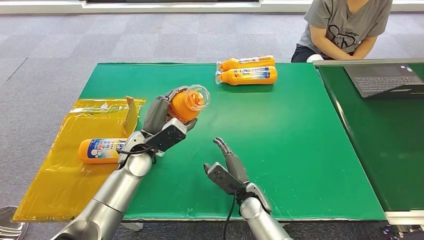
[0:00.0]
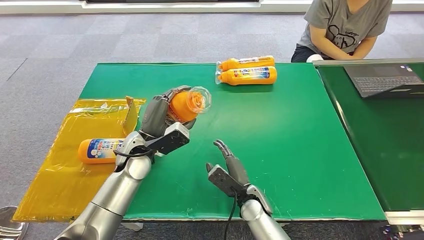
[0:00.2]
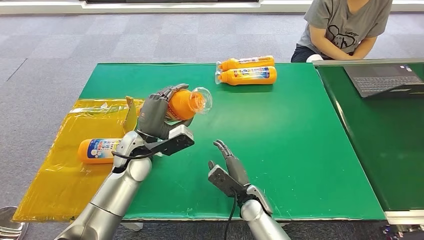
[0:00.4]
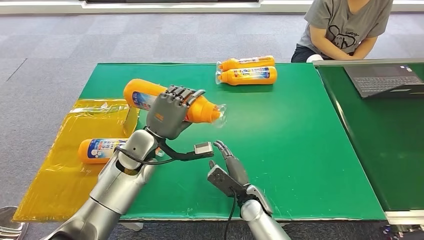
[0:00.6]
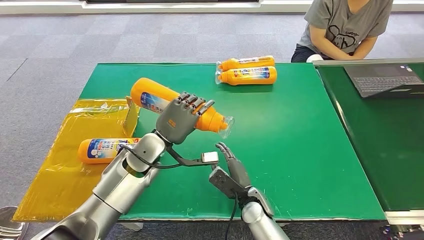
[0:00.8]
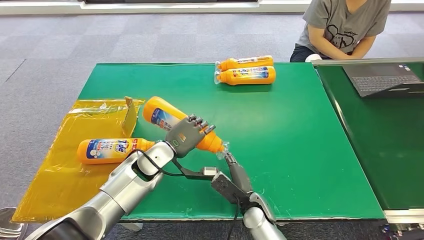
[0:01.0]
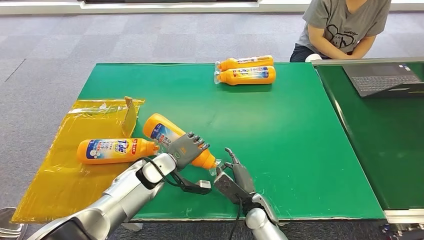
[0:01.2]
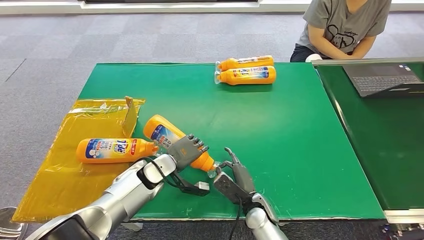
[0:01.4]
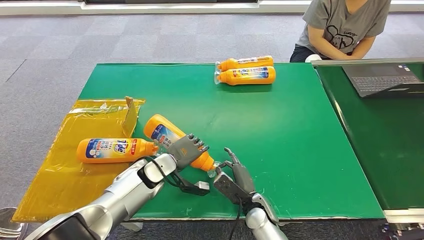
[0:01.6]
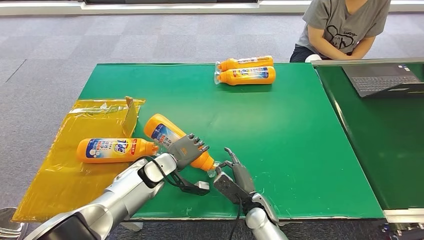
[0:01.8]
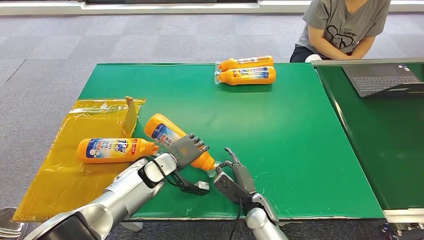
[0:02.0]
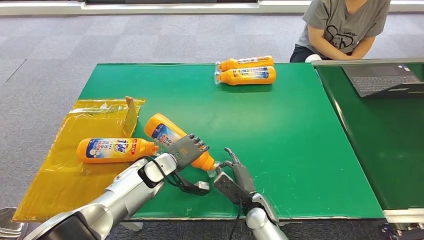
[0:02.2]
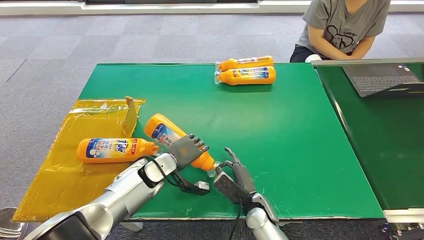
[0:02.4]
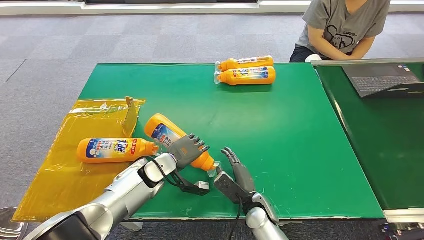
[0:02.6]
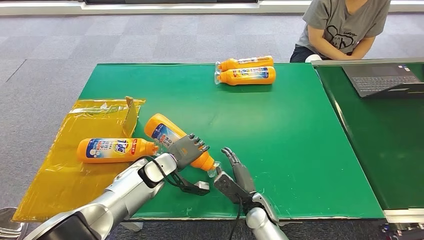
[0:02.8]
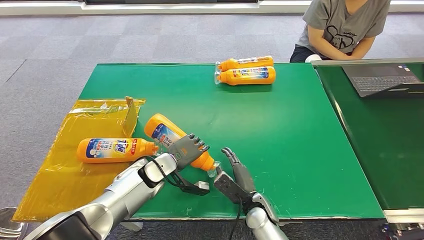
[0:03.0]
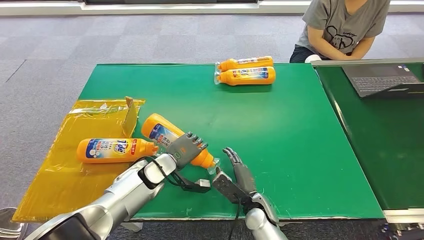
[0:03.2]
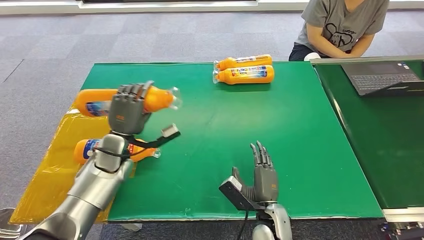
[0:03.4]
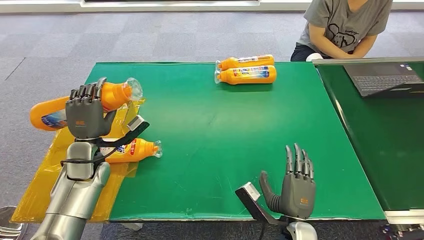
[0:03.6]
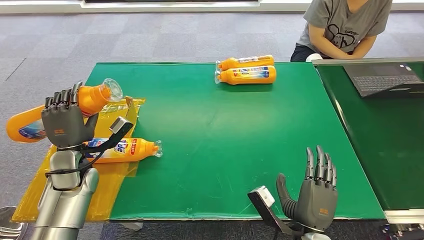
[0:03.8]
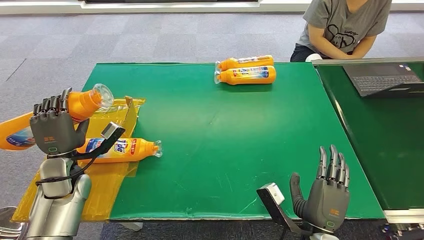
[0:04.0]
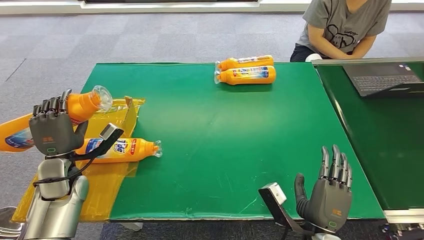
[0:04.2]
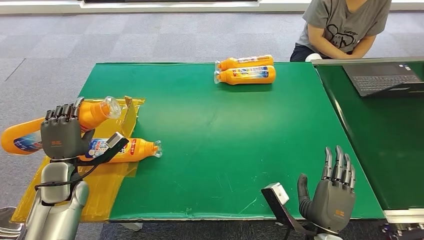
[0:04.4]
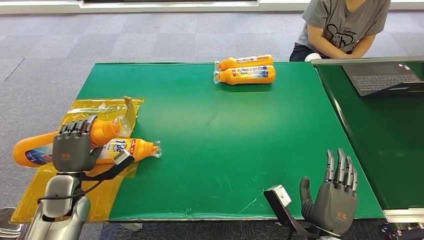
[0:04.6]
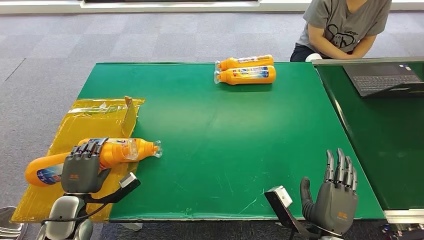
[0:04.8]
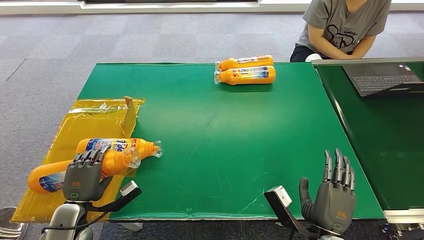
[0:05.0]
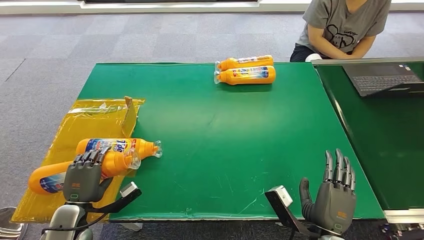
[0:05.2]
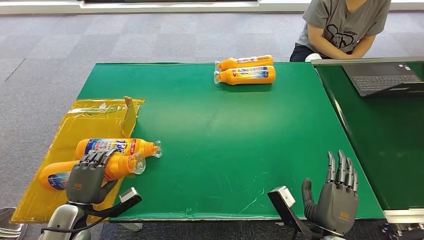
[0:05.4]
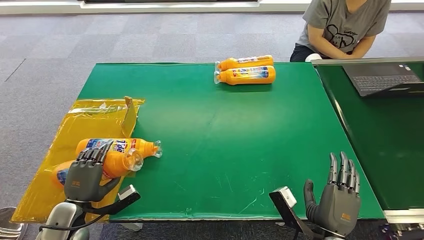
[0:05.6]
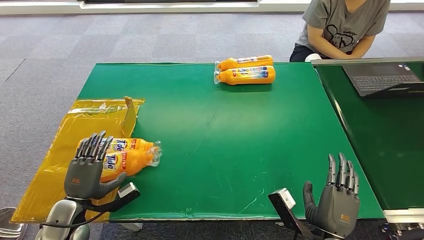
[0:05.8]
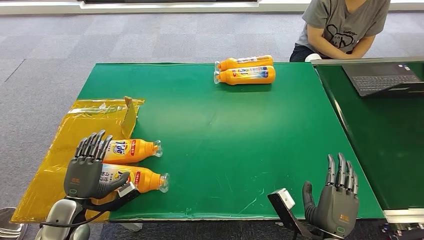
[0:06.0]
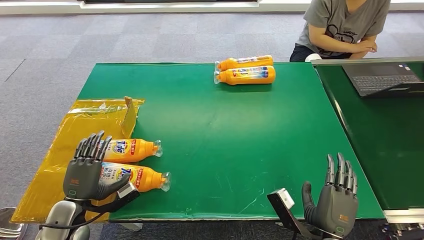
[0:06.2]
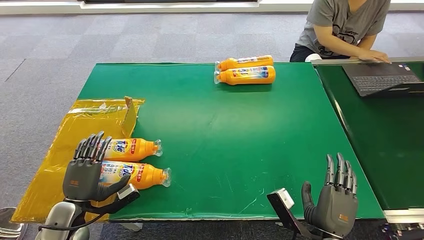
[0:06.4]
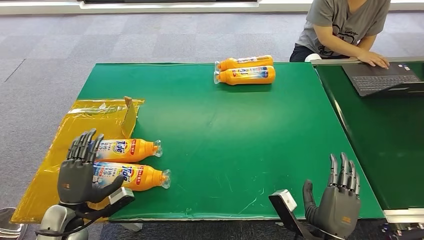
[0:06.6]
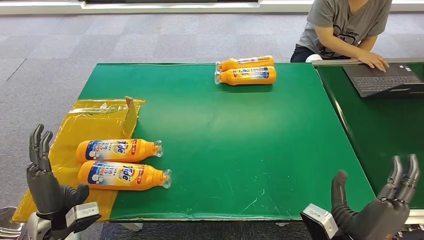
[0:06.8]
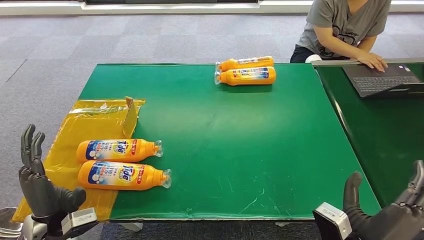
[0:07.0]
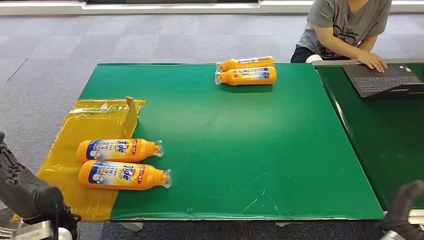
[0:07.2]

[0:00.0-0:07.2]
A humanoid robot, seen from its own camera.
Step, 0:00.0 to 0:07.0: Turn the bottle to the front side.
0:00.0 to 0:01.4: The left hand travels downward by roughly 10 cm.
0:01.4 to 0:02.8: Neither hand changes place.
0:04.4 to 0:05.8: The left hand heads backward and downward, covering roughly 10 cm.
0:05.8 to 0:07.2: The hands both shift upward by roughly 10 cm.
